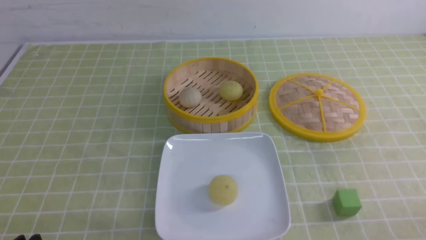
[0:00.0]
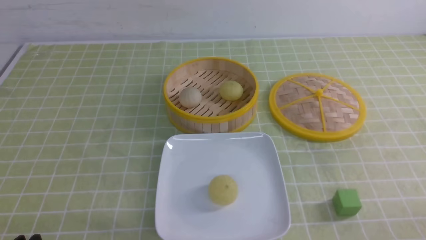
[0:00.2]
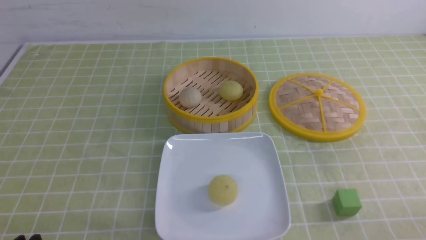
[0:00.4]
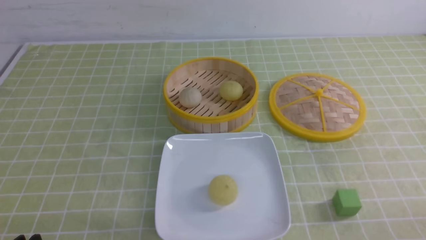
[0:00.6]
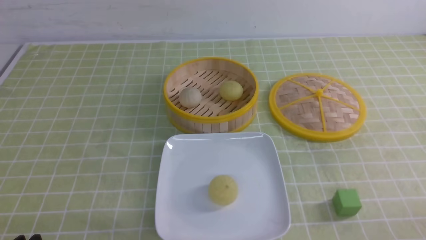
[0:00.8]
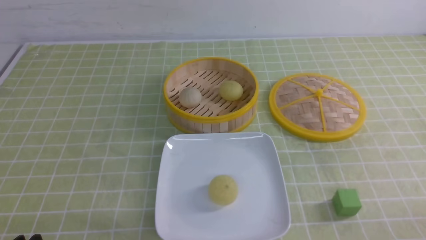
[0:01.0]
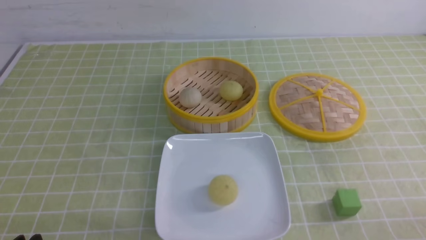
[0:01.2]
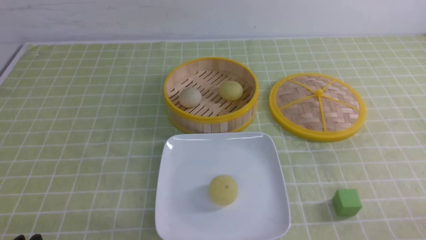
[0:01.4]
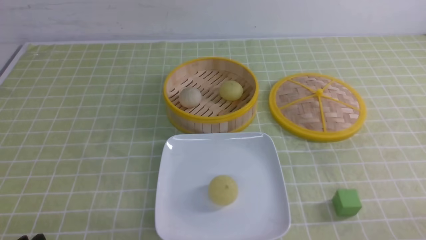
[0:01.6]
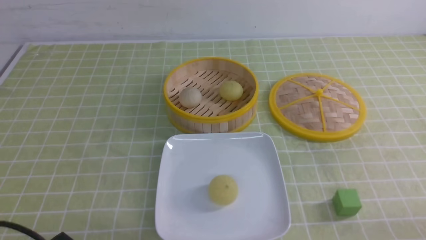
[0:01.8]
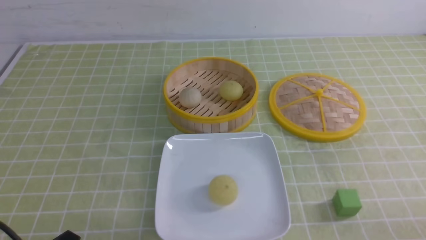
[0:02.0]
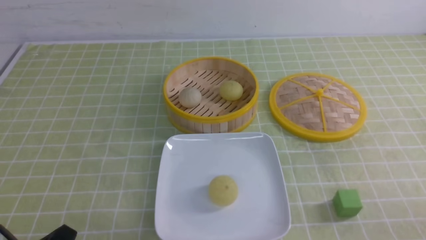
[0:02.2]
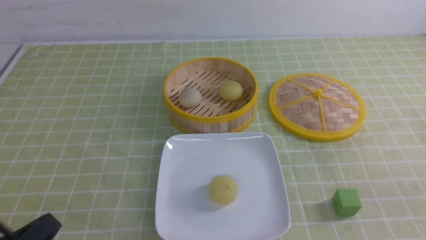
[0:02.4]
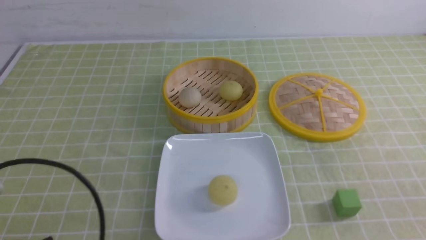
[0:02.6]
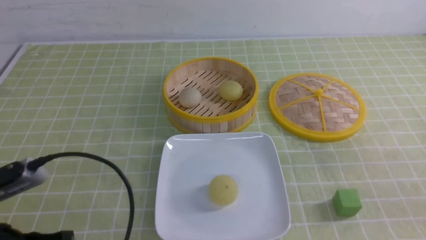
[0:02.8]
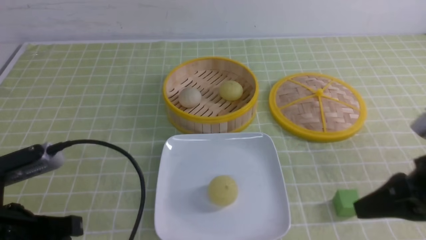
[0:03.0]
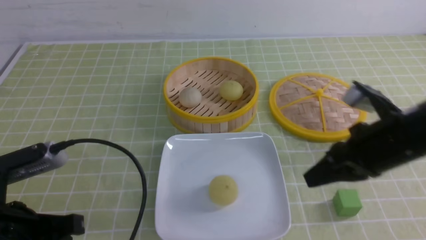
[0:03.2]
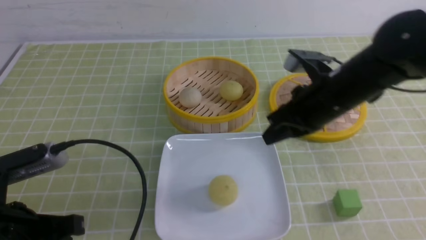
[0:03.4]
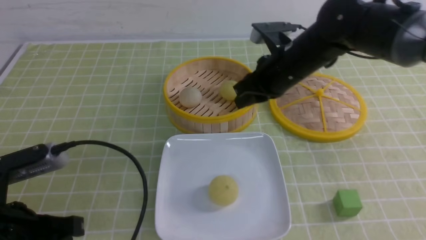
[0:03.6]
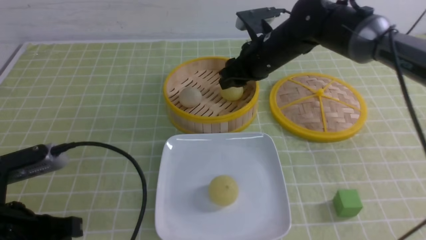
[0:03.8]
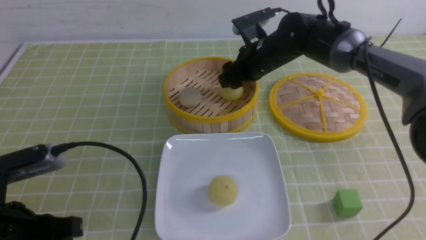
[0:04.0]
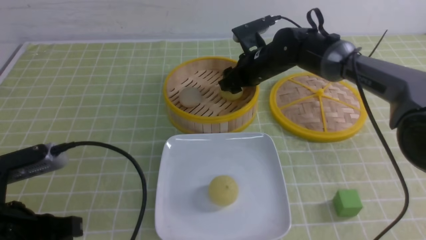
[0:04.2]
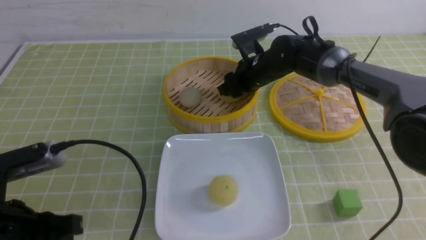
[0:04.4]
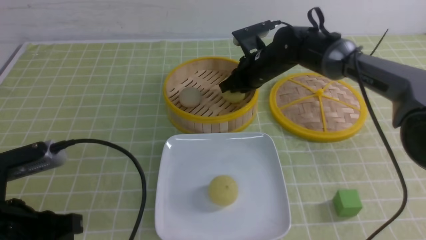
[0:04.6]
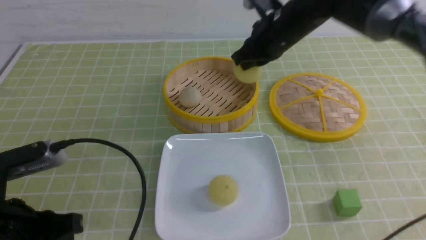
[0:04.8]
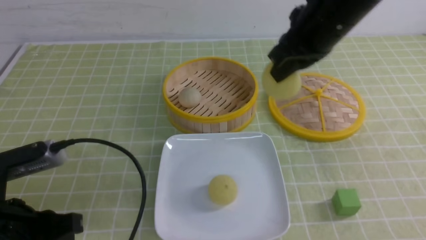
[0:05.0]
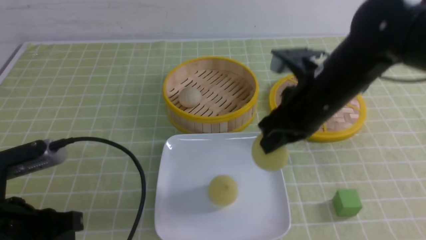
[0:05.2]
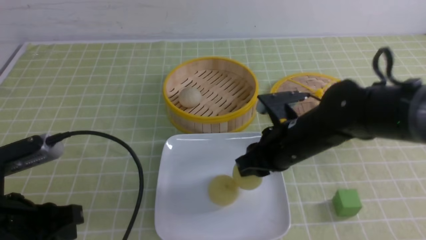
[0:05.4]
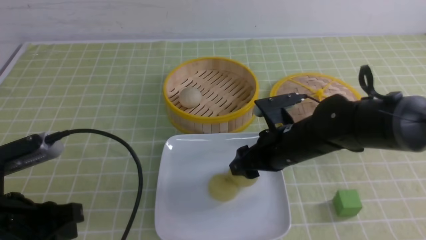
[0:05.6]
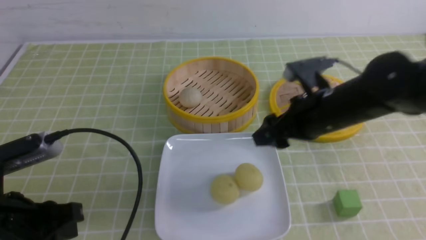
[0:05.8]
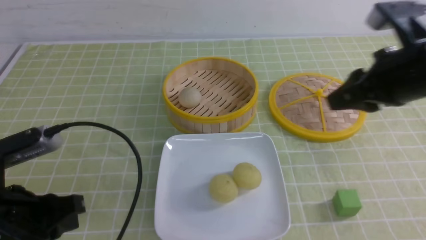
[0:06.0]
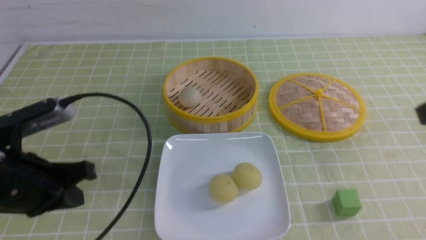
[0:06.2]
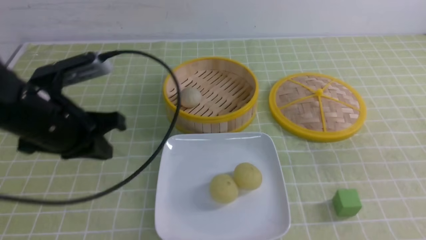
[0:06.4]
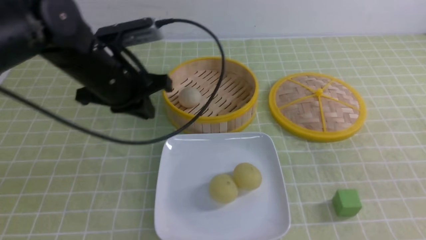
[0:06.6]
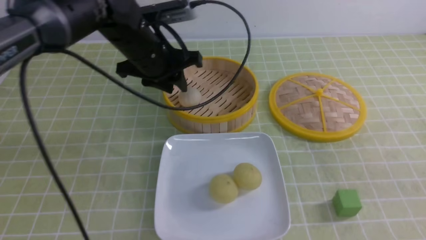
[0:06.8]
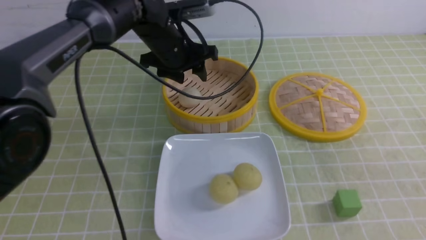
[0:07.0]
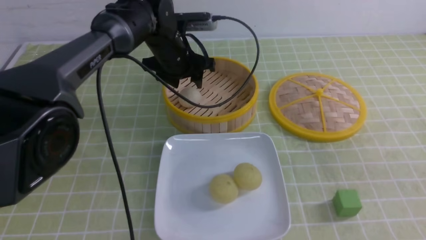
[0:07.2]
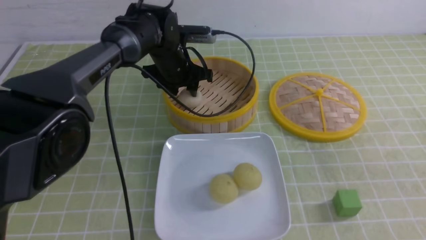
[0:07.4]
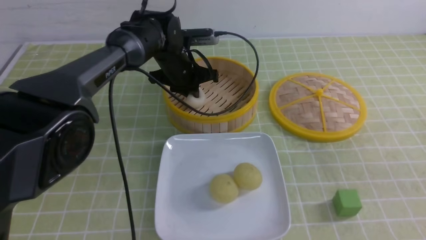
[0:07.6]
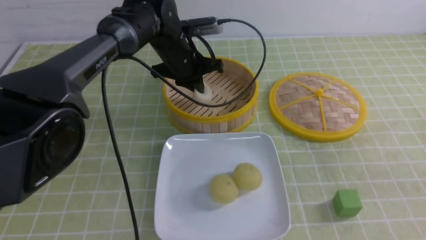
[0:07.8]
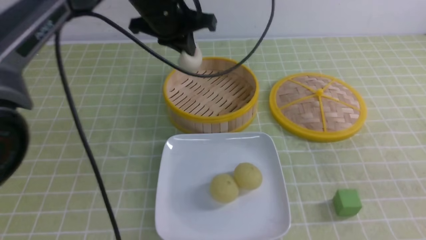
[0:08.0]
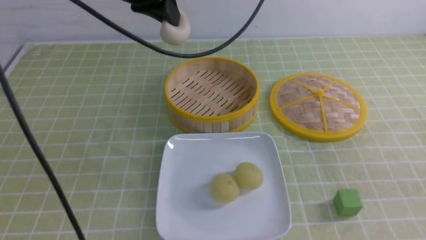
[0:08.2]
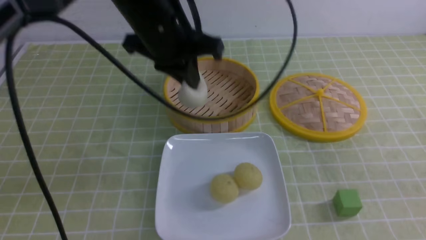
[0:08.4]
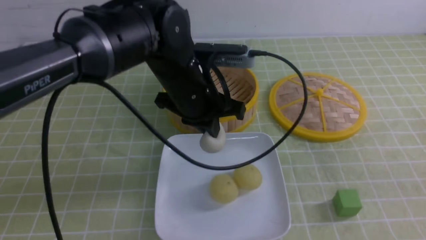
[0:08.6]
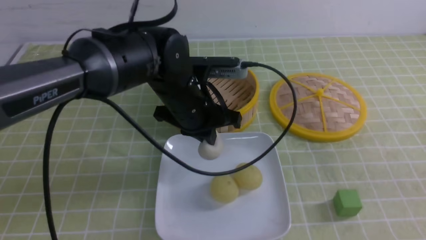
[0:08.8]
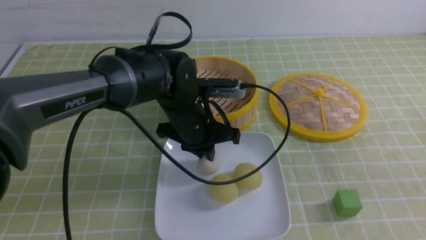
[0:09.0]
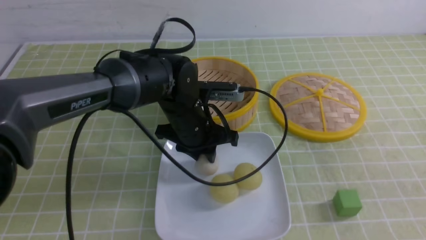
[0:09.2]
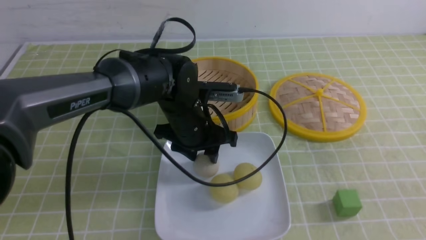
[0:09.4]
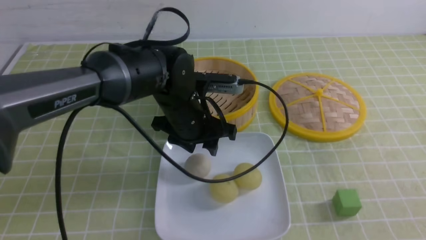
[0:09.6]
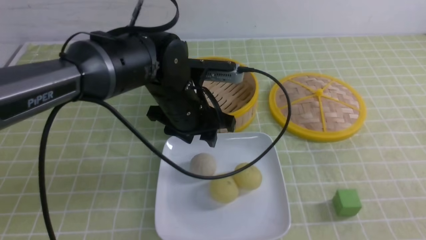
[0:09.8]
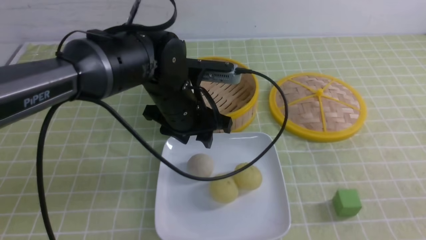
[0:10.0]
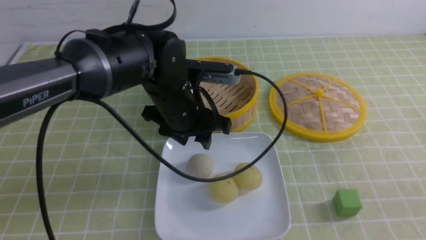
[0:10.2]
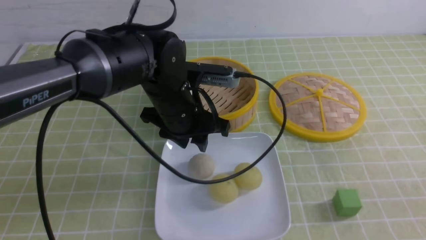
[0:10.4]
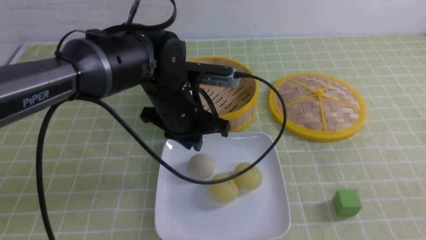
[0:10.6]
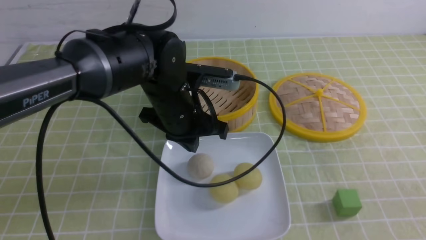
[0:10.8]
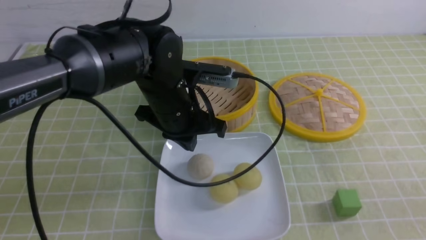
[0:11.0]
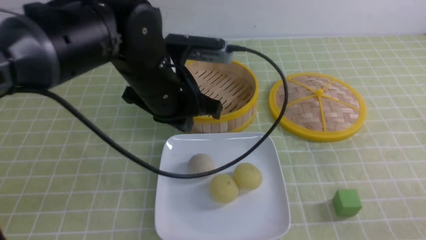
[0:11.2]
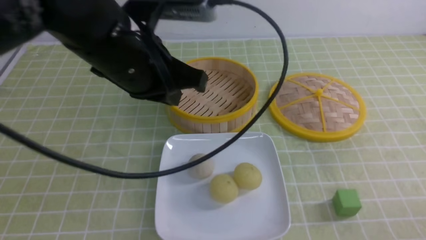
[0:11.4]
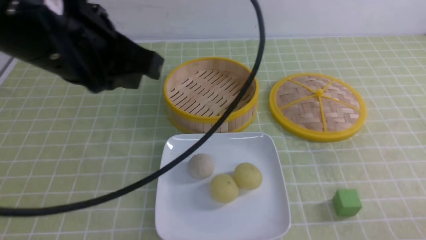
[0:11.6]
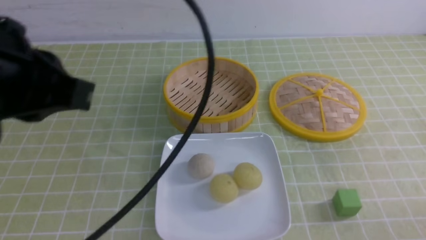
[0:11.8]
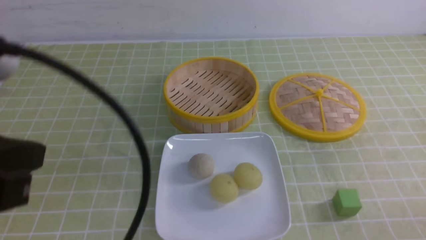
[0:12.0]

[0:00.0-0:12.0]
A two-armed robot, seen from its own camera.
Step, 0:00.0 to 0:04.6: use the right arm to grab the steamed stuffed bun that is closest to it.
Step, 0:04.8 to 0:05.6: use the right arm to put the steamed stuffed bun into the plate.
Step, 0:05.8 to 0:07.6: use the left arm to grab the steamed stuffed bun that is closest to it.
Step, 0:07.8 to 0:09.4: use the left arm to put the steamed stuffed bun into the plate.
0:01.6 to 0:03.0: The right gripper travels forward, upward and to the left by approximately 20 cm, and closes up, while the left gripper moves upward and forward, roughly 10 cm, and closes.
0:03.0 to 0:04.4: The left gripper opens. Meanwhile the right gripper heads forward and to the left, covering some 35 cm, and opens.
0:04.4 to 0:06.0: The right gripper goes approximately 30 cm backward, upward and to the right, and closes, then opens again.
0:06.0 to 0:07.6: The left gripper is displaced forward and to the right by about 35 cm, and opens and closes again, while the right gripper is displaced backward and to the right by about 15 cm, and closes its fingers.
0:07.6 to 0:09.0: The left gripper moves backward, some 15 cm, and moves about 15 cm upward and comes back.
0:09.0 to 0:10.4: The right gripper is displaced backward by about 5 cm; the left gripper opens.
0:10.4 to 0:12.0: The left gripper goes approximately 30 cm backward, to the left and upward, and closes its fingers; the right gripper goes approximately 10 cm downward.

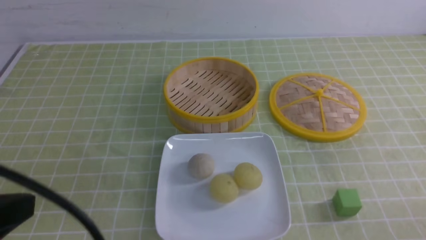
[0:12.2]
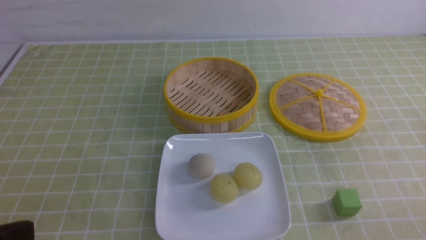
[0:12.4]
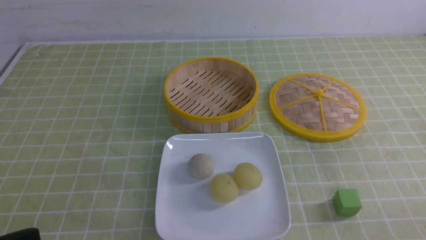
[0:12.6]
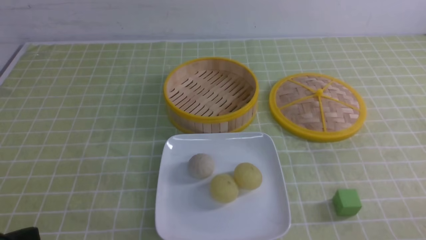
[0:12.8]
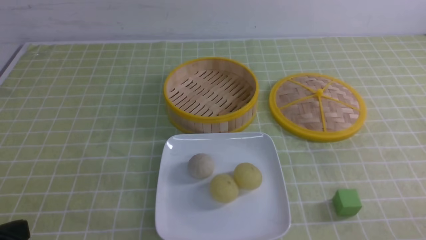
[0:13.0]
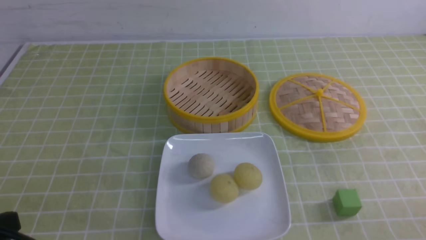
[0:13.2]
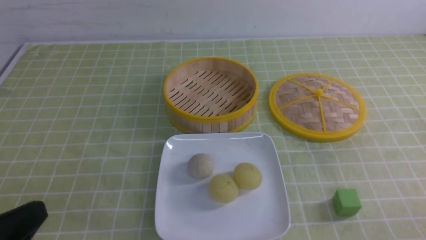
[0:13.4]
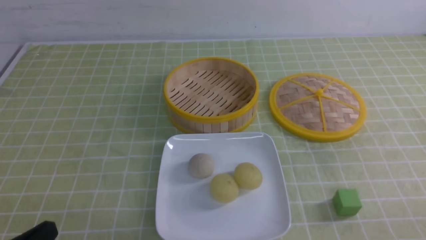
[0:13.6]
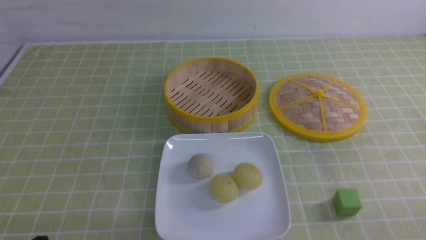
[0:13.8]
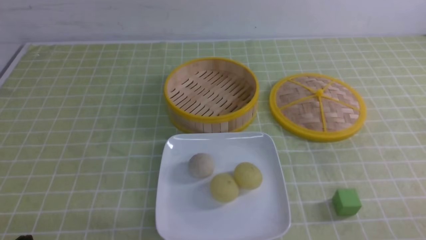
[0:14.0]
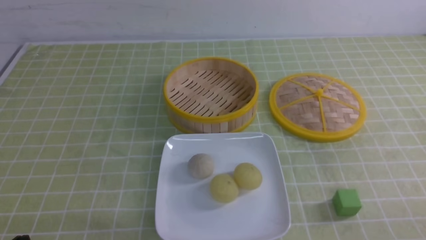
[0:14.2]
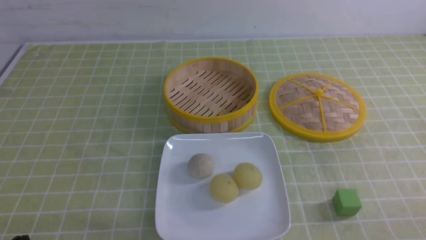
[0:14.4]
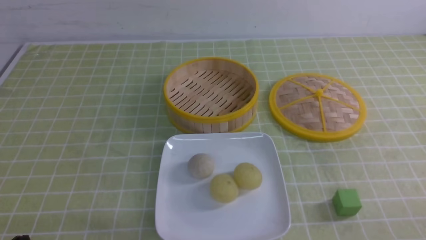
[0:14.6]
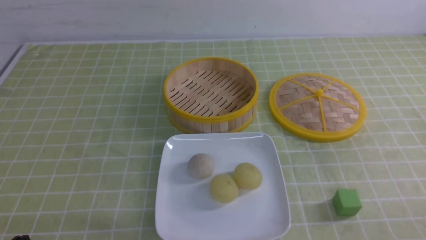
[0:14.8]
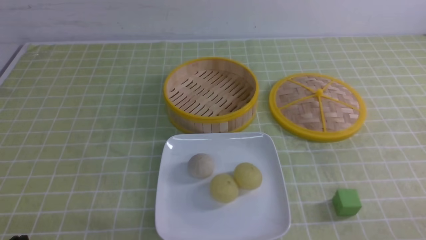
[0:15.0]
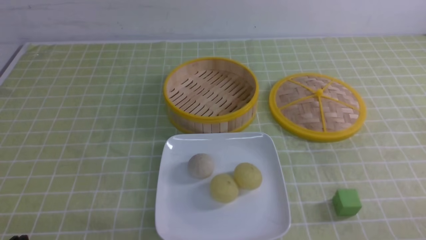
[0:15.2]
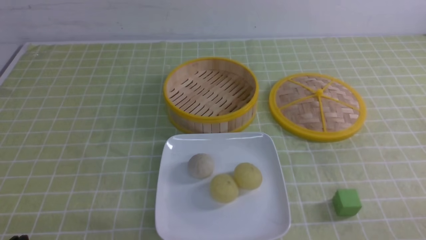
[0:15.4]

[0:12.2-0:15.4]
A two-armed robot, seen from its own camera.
0:12.2 to 0:13.8: The left gripper goes roughly 15 cm downward.

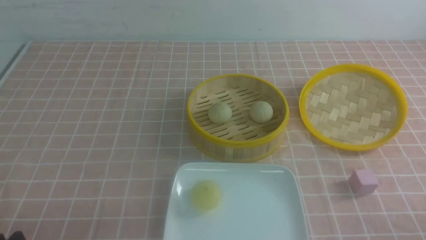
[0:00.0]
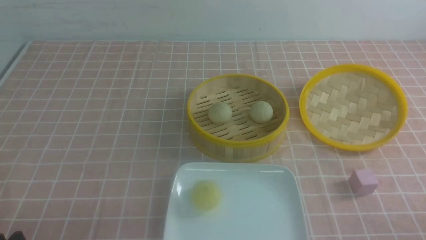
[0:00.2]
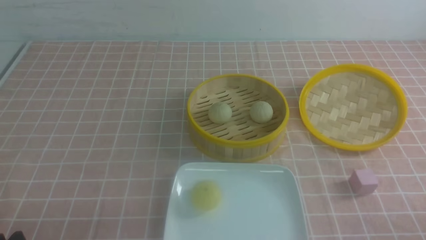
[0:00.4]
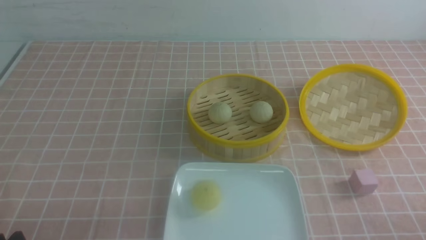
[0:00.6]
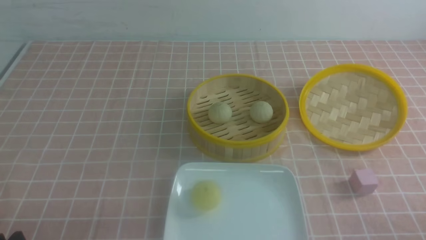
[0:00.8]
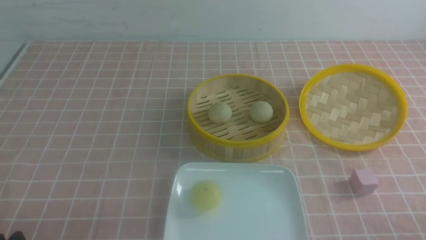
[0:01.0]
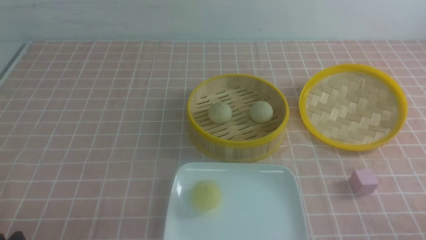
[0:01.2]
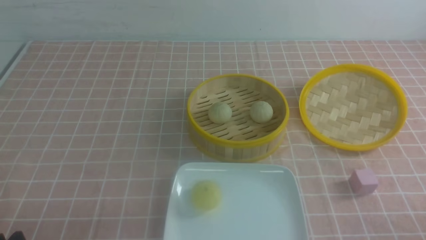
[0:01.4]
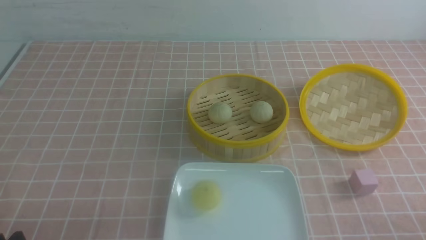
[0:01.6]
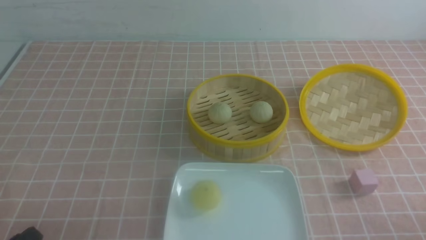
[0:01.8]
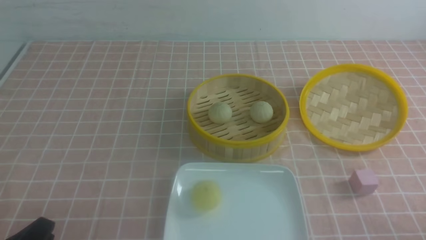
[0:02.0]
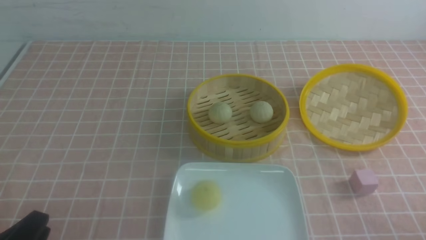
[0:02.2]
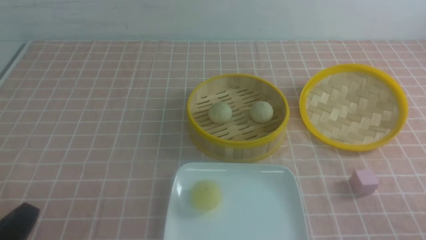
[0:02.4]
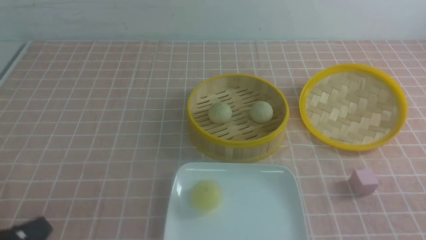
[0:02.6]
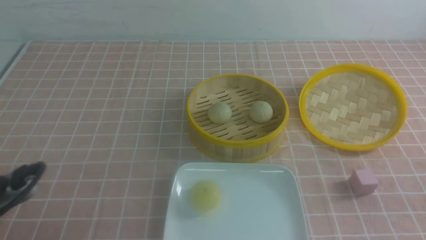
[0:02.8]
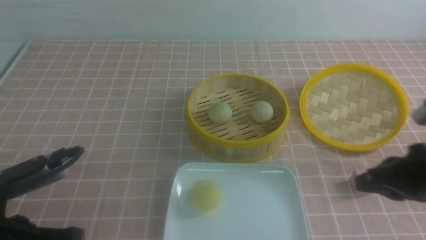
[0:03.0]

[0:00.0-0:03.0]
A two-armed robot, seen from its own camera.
0:01.6 to 0:03.0: The right gripper heads forward, upward and to the left, covering about 20 cm, and closes its fingers; the left gripper goes approximately 10 cm upward and forward, and closes up.
